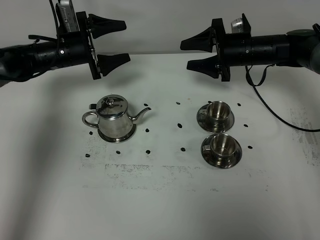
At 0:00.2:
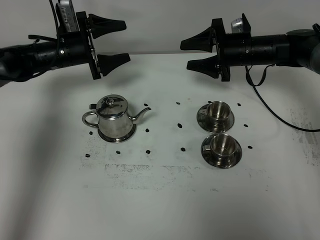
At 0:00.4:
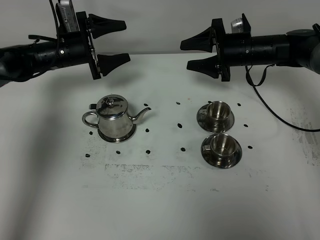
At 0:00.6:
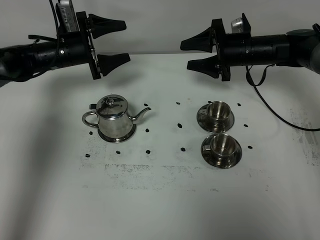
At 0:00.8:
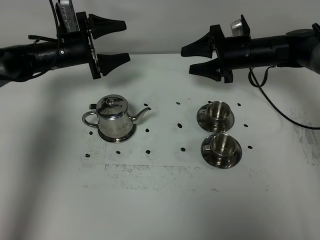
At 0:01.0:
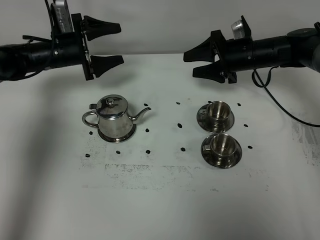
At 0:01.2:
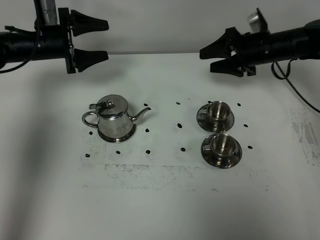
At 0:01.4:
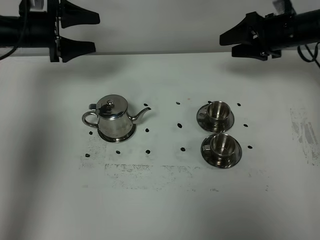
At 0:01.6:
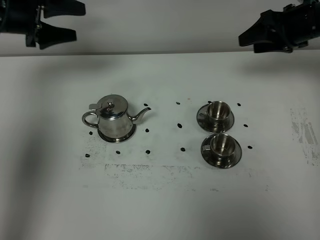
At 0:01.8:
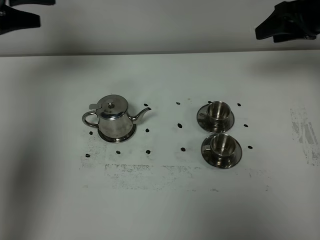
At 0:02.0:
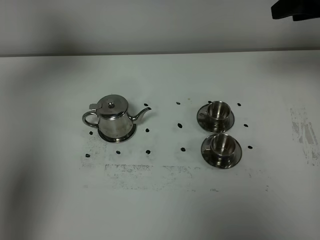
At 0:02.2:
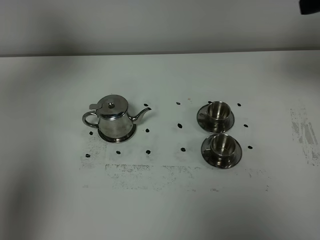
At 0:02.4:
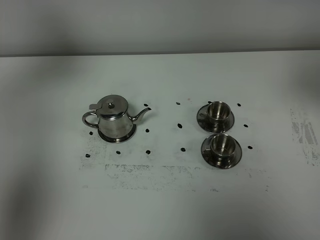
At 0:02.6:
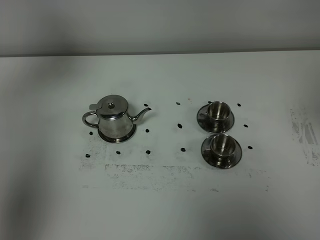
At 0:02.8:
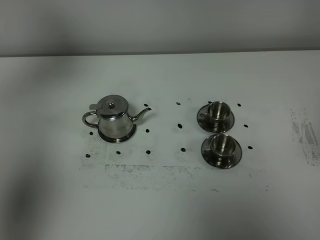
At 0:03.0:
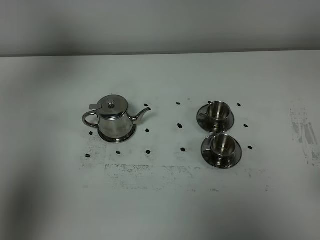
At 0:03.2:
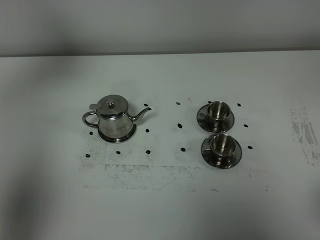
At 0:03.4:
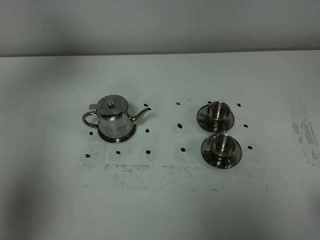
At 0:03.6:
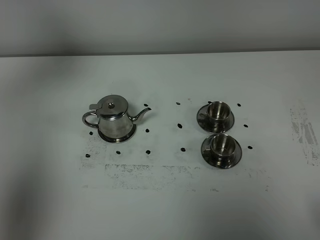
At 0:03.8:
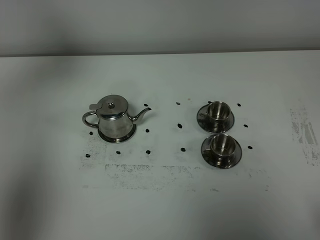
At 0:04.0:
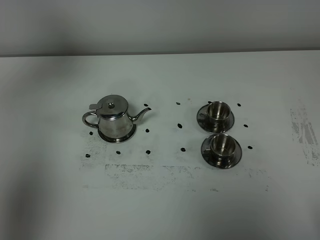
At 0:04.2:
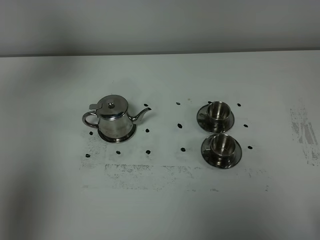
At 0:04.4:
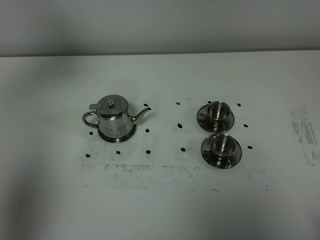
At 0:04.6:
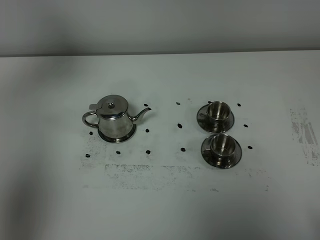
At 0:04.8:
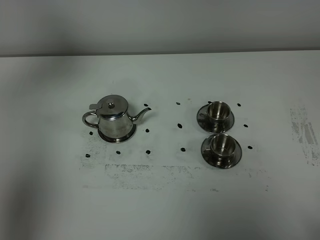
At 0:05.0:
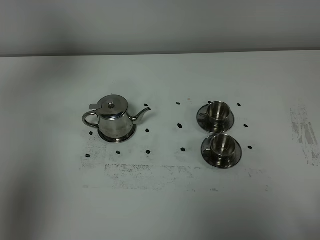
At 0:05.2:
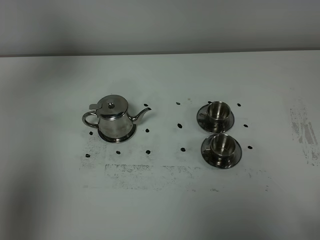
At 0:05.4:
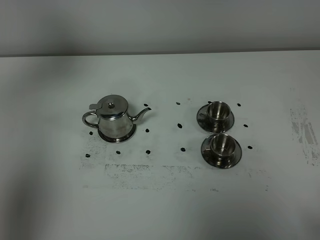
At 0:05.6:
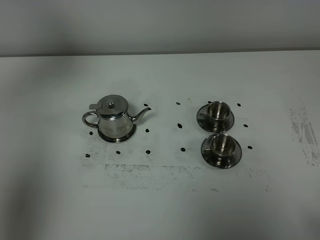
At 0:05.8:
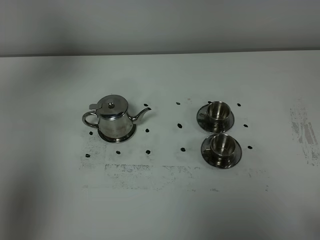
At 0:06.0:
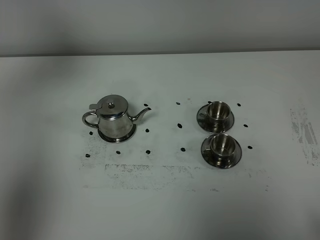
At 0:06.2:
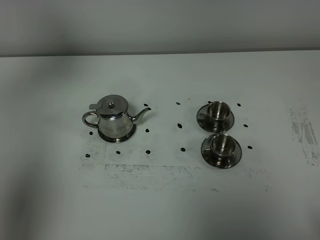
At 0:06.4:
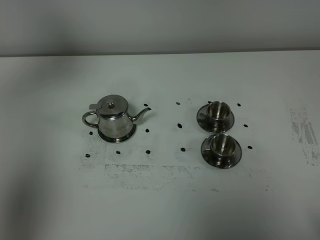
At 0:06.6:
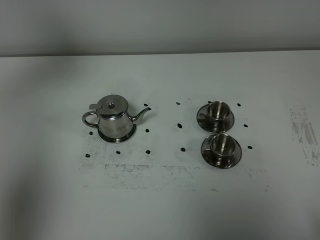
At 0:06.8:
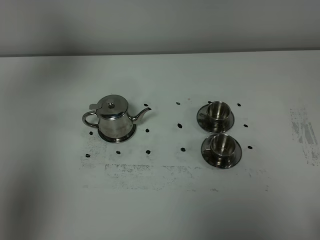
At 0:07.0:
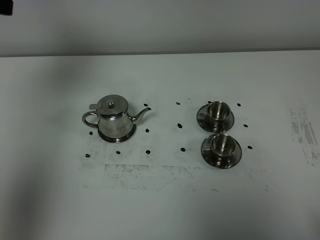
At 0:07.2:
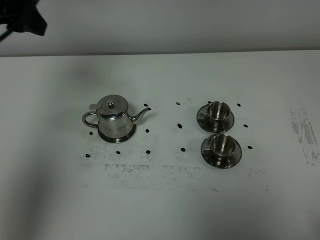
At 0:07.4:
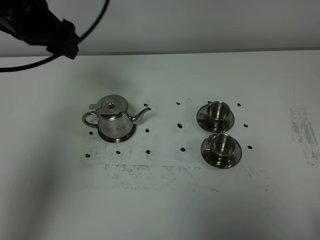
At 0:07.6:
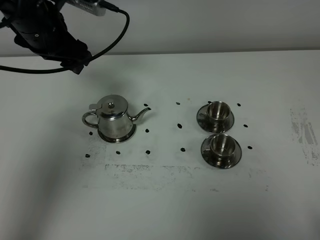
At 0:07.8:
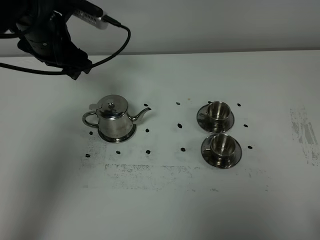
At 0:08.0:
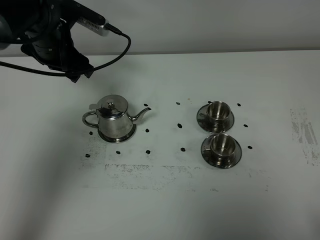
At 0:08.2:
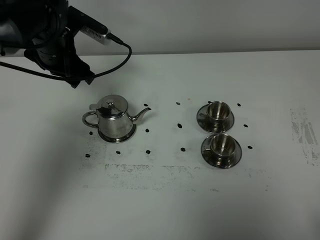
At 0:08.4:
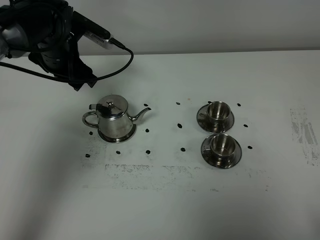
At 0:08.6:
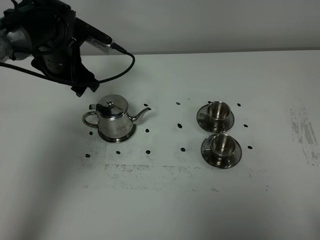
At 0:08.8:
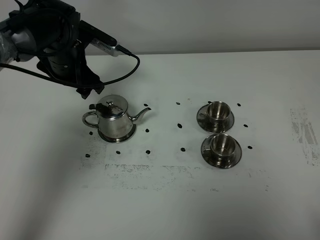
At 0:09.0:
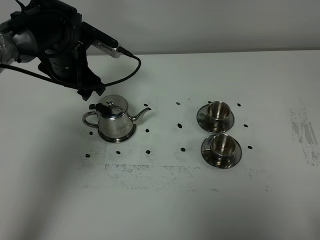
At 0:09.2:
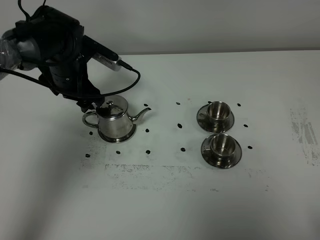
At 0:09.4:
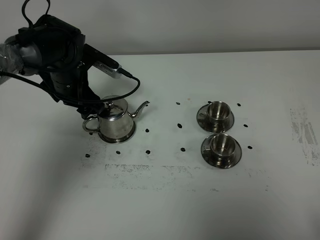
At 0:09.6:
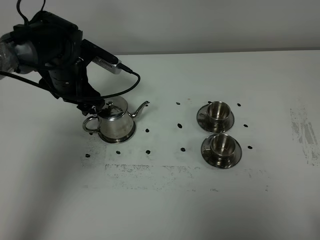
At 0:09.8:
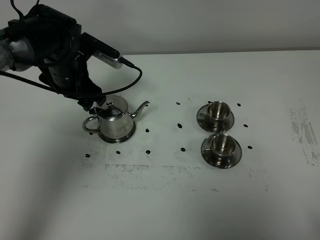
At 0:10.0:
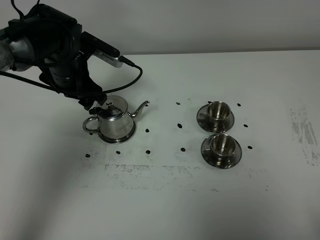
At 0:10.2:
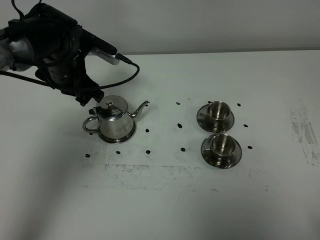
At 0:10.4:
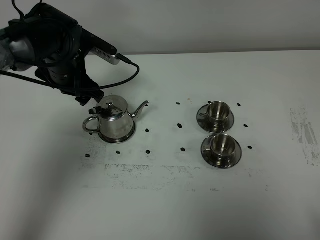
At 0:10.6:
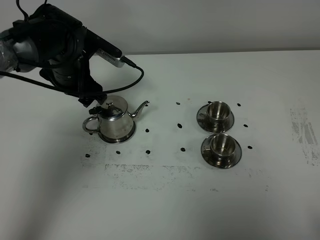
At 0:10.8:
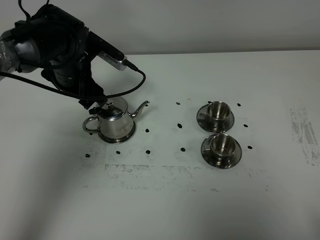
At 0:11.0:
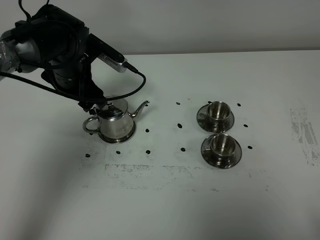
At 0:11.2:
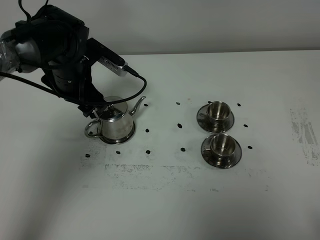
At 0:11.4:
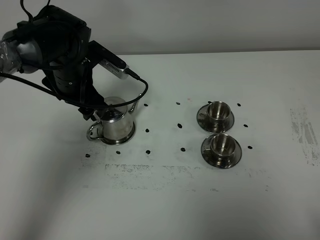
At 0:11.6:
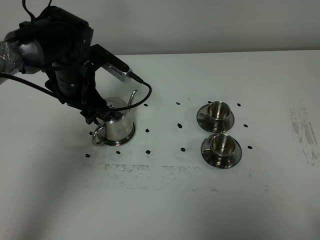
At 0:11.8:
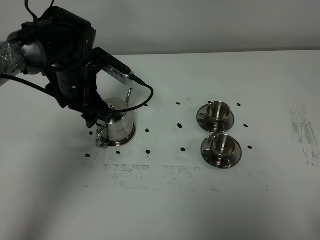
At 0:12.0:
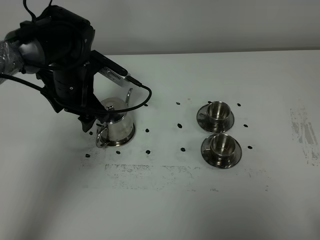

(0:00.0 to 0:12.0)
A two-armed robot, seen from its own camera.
Task of the whole recording: grasp the stainless steel teapot and pour the tea into the two stainless steel teacups one by one, put the stainless steel teapot back in its original place.
0:00.0 - 0:01.6: The right gripper heads upward and to the right, covering some 15 cm, while the left gripper shifts approximately 15 cm upward and to the left.
0:01.6 - 0:03.0: The right gripper is displaced backward by some 35 cm; the left gripper travels upward, backward and to the left by roughly 20 cm.
0:06.0 - 0:07.6: The left gripper shifts some 25 cm to the right, downward and forward.
0:07.6 - 0:09.0: The left gripper is displaced downward by approximately 10 cm.
0:09.0 - 0:12.0: The grippers make only small movements.

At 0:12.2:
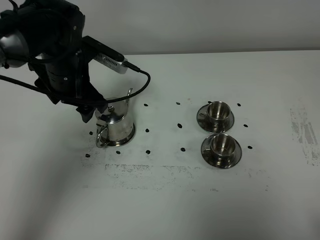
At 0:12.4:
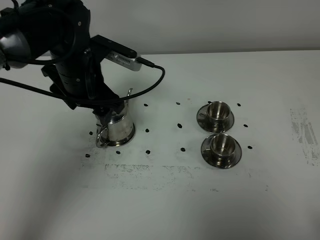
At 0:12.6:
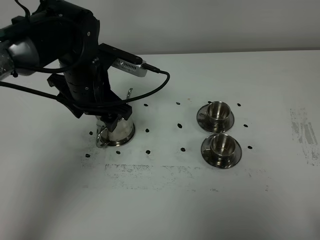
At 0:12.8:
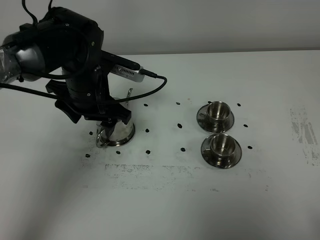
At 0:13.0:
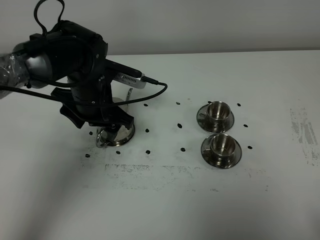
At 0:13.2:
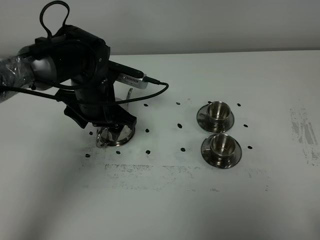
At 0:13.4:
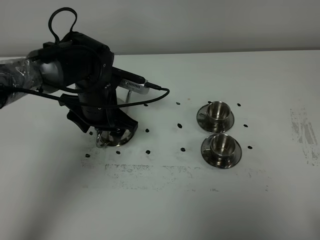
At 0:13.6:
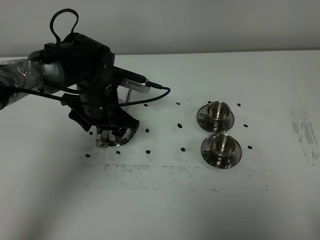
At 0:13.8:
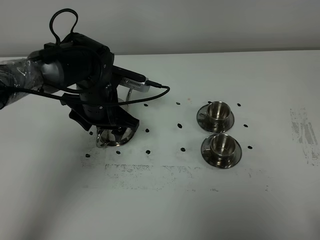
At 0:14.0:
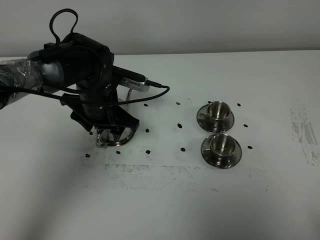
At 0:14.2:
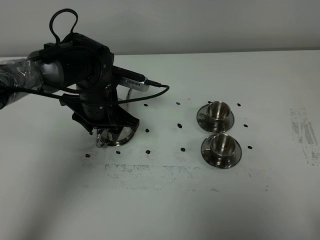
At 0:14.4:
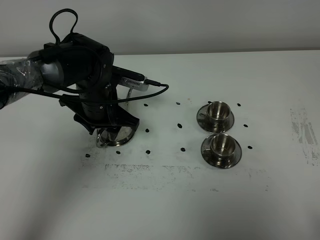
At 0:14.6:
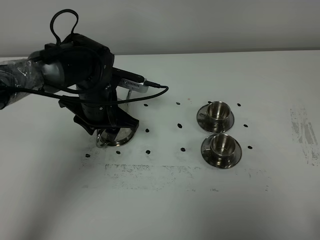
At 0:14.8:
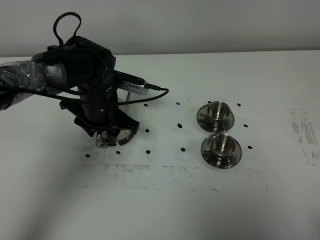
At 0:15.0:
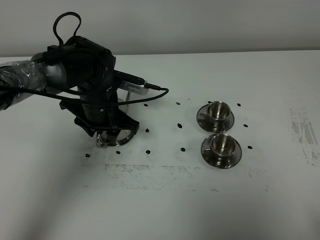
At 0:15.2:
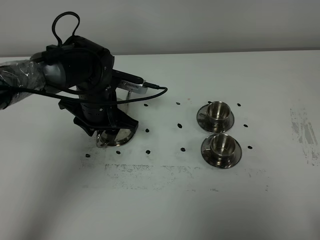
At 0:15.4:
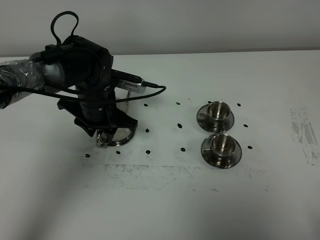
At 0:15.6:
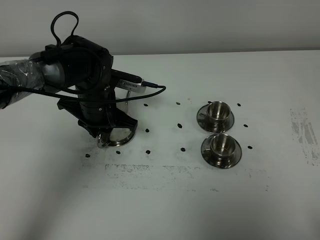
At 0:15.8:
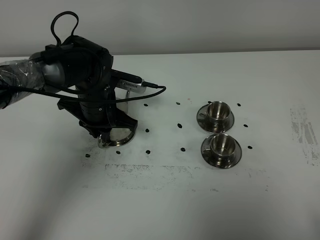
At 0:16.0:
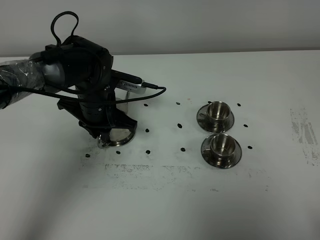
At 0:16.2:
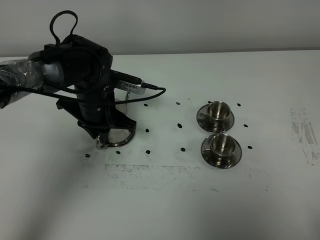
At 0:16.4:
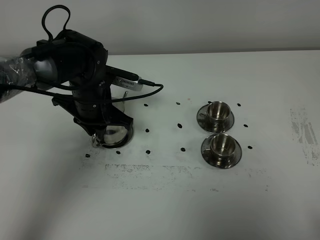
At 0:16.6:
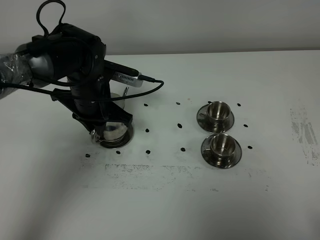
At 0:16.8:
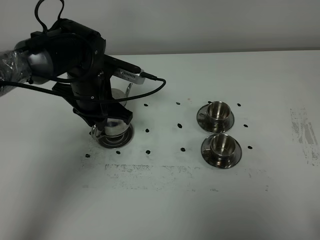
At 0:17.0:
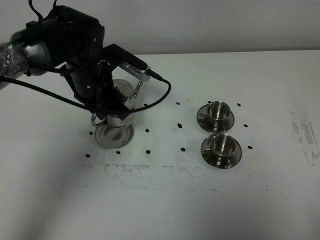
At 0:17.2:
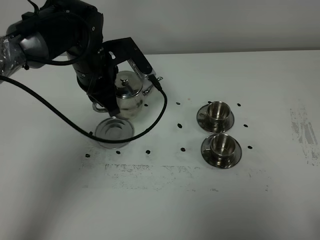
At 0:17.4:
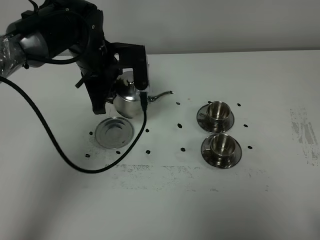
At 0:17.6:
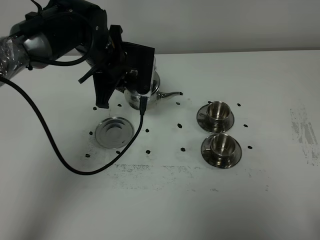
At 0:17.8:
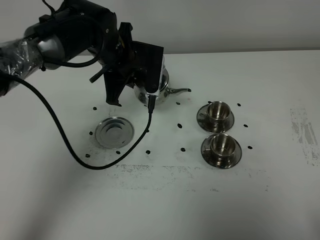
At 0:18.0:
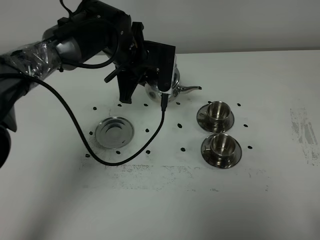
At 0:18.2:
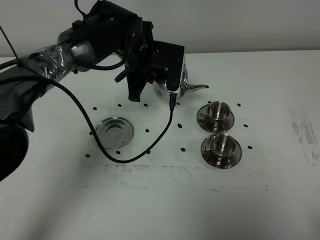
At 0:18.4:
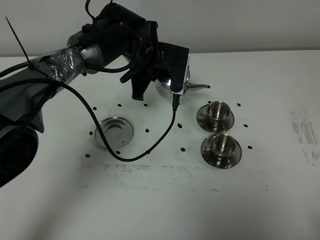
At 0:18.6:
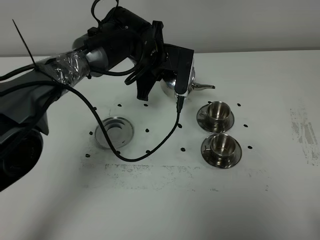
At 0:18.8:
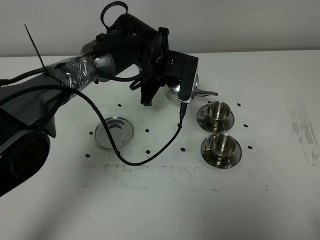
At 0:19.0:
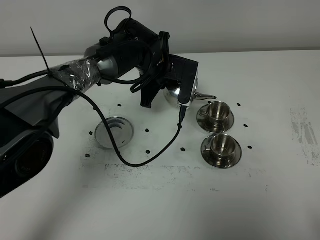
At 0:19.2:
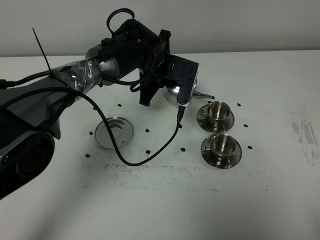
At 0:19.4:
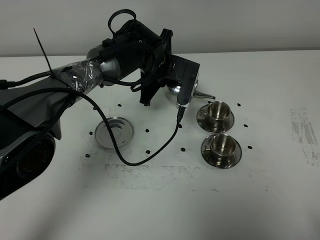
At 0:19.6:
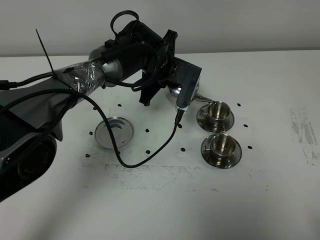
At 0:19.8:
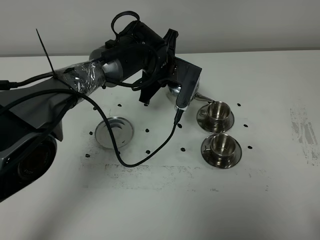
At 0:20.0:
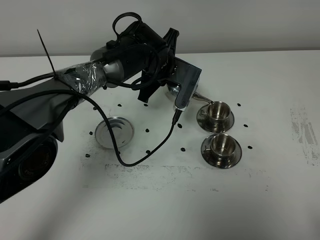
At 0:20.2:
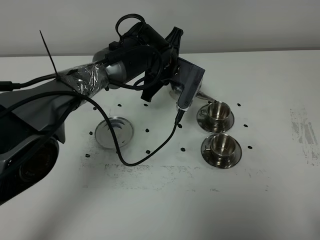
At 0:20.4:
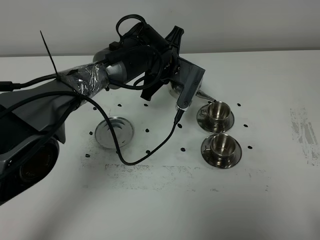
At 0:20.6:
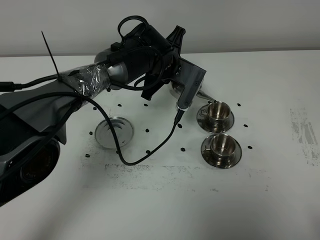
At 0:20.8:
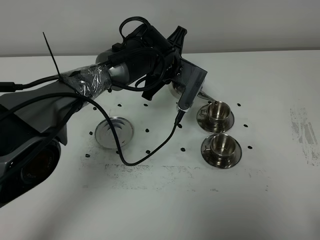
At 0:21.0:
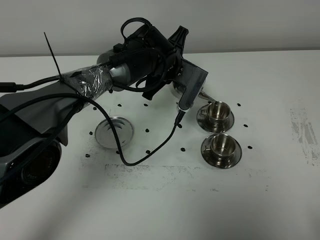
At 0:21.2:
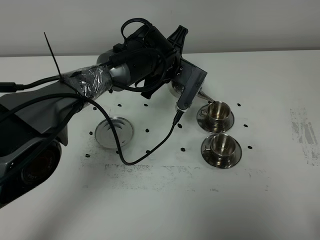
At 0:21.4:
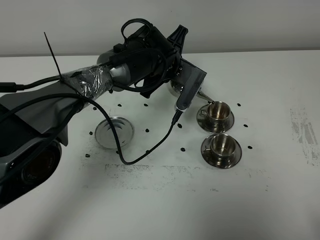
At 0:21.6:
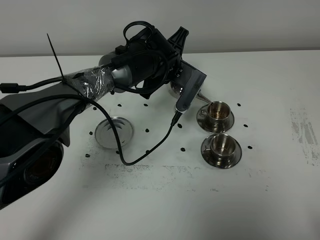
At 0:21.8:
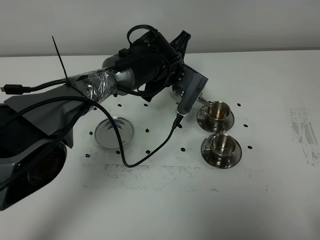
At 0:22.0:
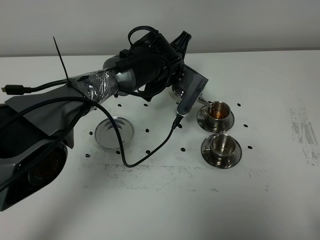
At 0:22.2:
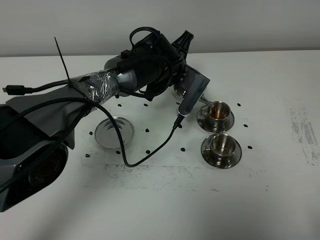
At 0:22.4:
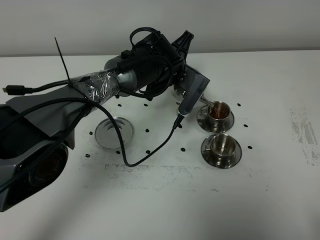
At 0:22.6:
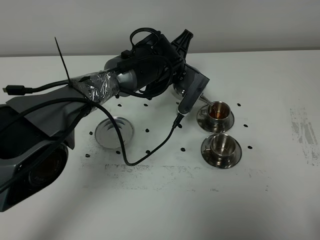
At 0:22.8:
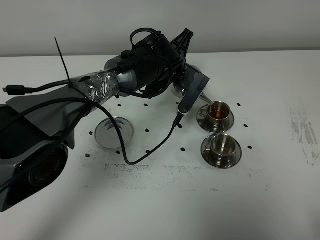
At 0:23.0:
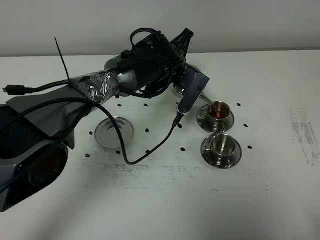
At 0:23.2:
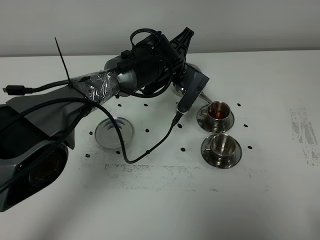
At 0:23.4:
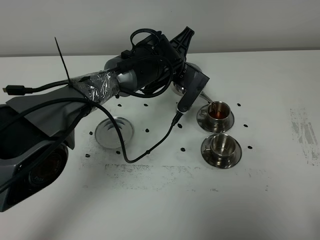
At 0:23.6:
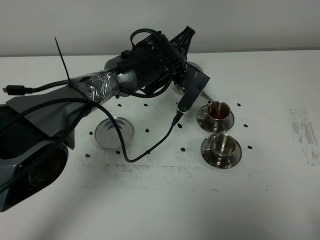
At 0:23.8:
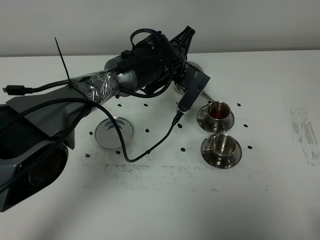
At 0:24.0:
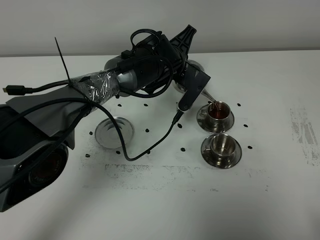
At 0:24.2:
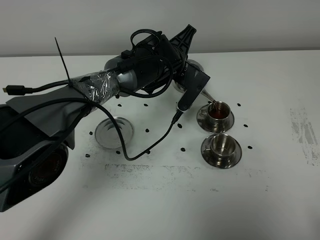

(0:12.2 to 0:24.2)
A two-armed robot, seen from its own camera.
Task of the whole recording: grasp the stainless steel teapot and pour the tea into the two stainless steel teacups one by one, put the stainless steel teapot back in its original place.
Step, 0:12.2 - 0:16.4: Pick up the teapot with the left gripper.
0:12.2 - 0:13.8: The left gripper shifts approximately 5 cm downward.
0:13.8 - 0:15.2: The two grippers keep their place.
0:15.2 - 0:16.6: The left gripper closes its fingers.
0:16.6 - 0:18.2: The left gripper heads to the right and forward, covering roughly 10 cm.
0:19.8 - 0:21.2: The grippers stay close to where they were, moving slightly.
0:21.2 - 0:22.6: Both grippers stay about where they are.
0:22.6 - 0:24.2: Neither gripper changes place.
